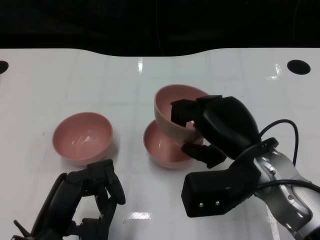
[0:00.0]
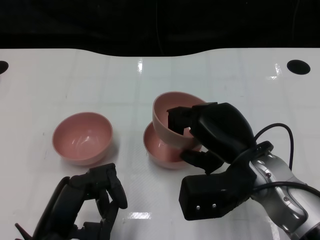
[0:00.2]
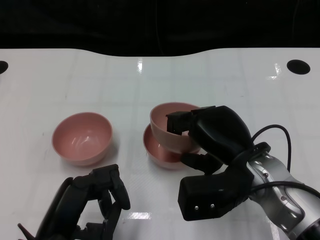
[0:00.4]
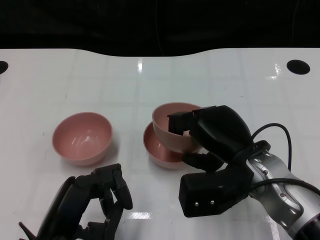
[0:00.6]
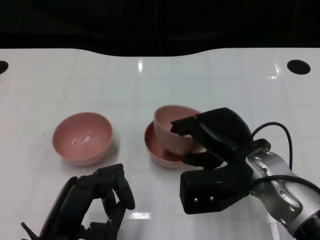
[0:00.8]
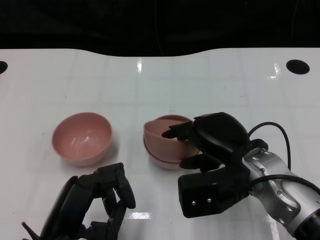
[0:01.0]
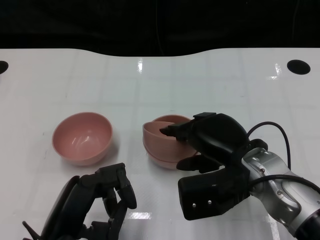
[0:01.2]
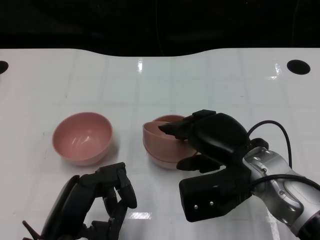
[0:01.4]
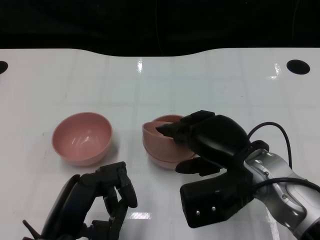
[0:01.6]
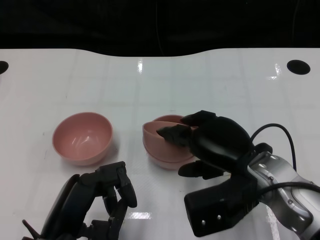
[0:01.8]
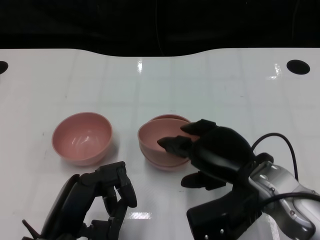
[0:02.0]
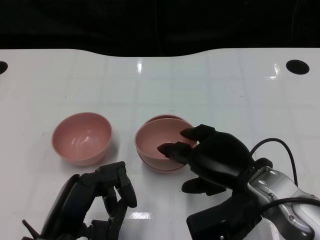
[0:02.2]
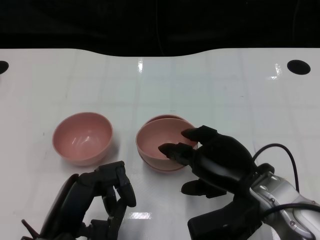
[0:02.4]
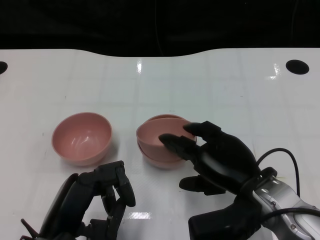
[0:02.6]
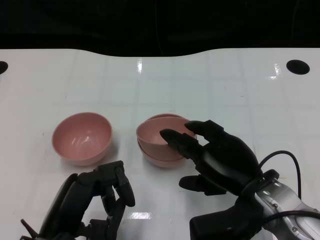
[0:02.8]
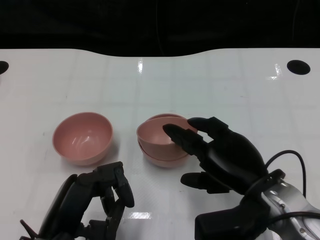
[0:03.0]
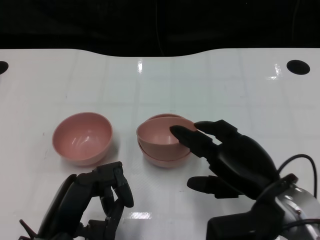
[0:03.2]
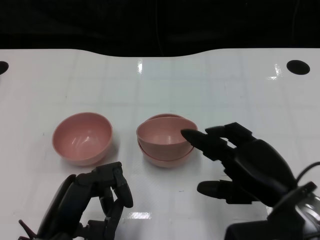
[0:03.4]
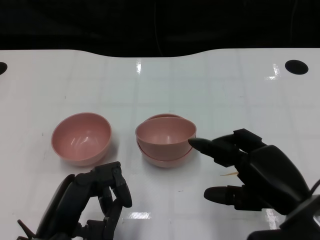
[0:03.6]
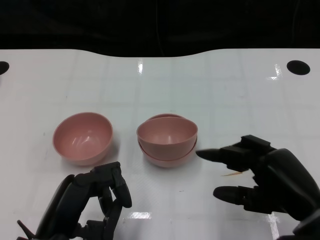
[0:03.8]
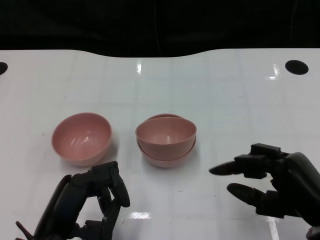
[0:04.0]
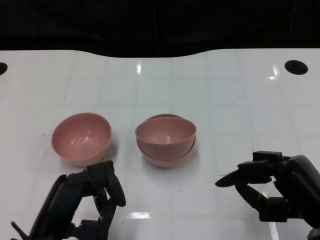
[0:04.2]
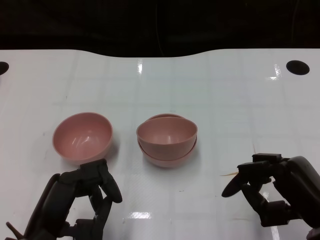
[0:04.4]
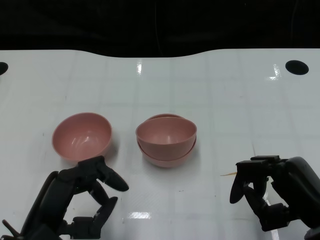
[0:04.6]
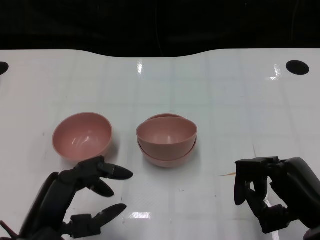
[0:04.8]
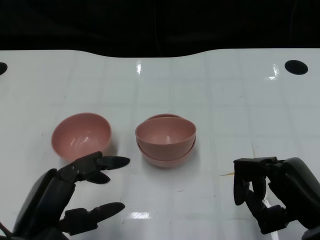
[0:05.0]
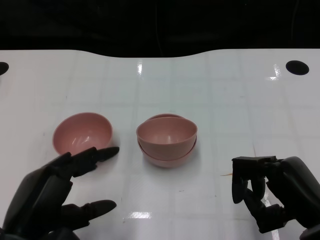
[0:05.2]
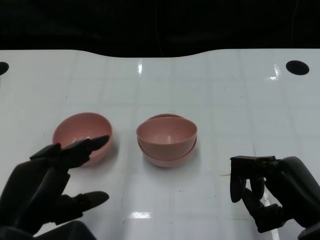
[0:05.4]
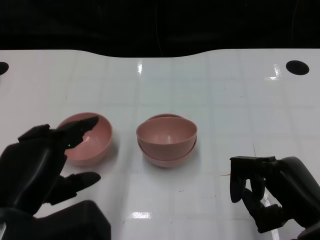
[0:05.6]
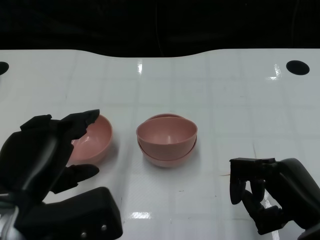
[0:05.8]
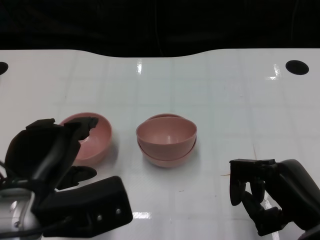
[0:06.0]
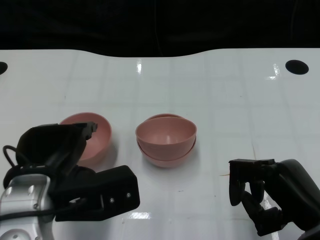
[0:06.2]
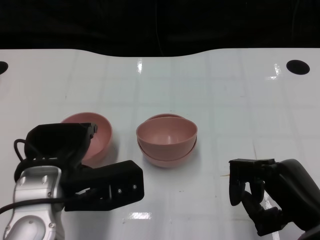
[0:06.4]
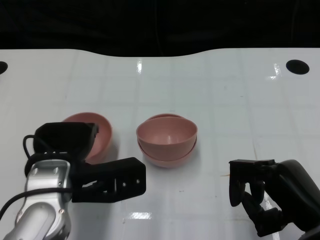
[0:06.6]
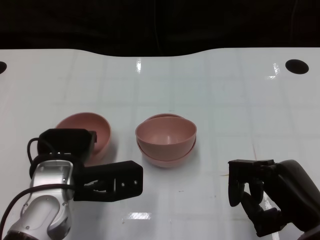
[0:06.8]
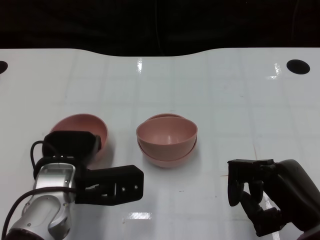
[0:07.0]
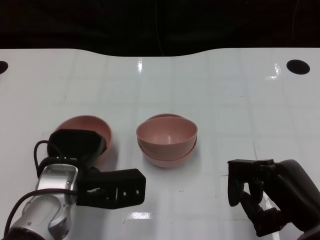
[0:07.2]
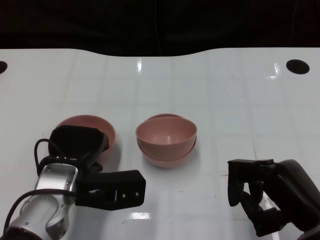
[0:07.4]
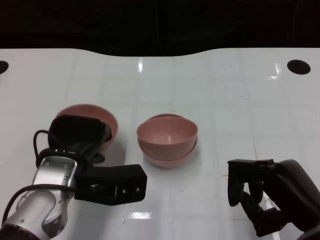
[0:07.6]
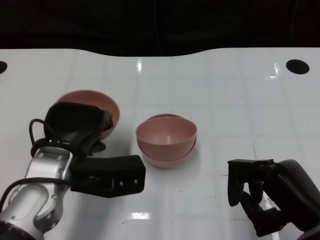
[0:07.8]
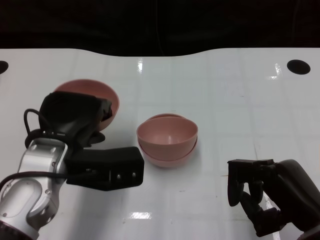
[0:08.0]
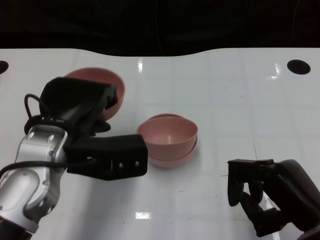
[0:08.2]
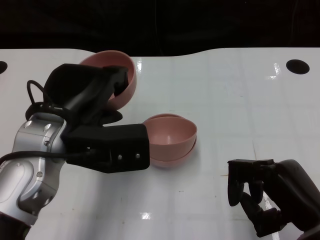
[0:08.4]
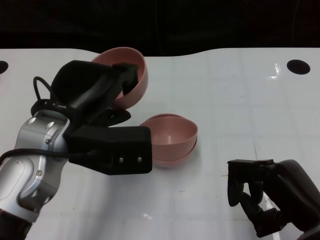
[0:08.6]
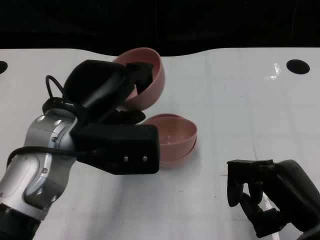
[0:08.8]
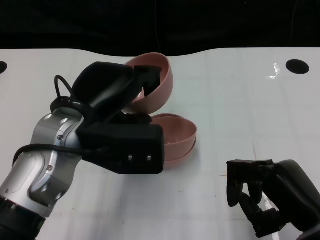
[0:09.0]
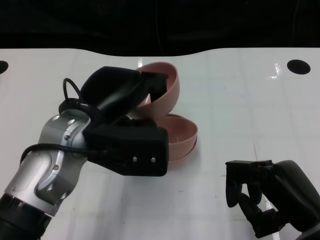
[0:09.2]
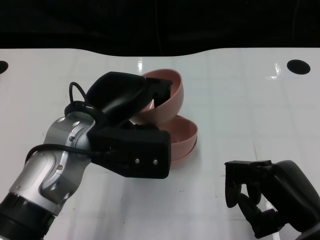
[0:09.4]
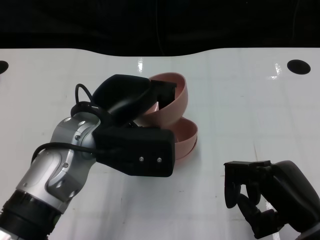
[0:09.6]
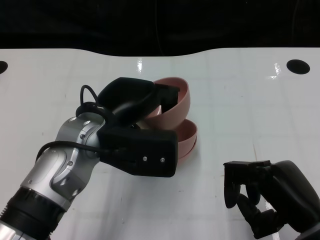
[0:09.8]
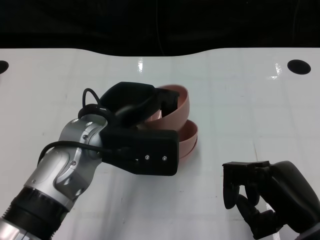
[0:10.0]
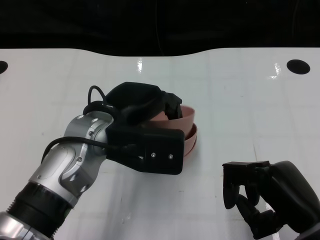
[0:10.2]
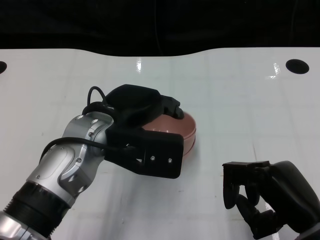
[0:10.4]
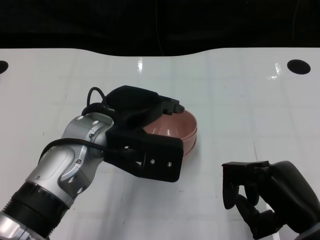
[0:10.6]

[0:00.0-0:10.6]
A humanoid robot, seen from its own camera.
Task of the whole recording: Pick up the bowl on one side of the table and place it on top of the middle bowl, then pick up the bowl on the other side of the table and place it on top of the middle bowls.
Step, 0:00.0 to 0:03.2: Place the bowl on the right onto the bowl in the middle with right gripper.
Step, 0:03.4 to 0:07.4: Grasp the bowl on the left with the left gripper.
0:00.0 to 0:01.6: The hands move only a little.
0:01.6 to 0:03.0: The hands move only a little.
0:03.0 to 0:04.6: The right hand heads to the right and backward, covering approximately 10 cm.
0:04.6 to 0:06.0: The left hand travels upward by approximately 5 cm.
0:06.0 to 0:07.6: The left hand travels forward and downward by approximately 10 cm.
0:07.6 to 0:09.0: The left hand heads upward, covering some 10 cm.

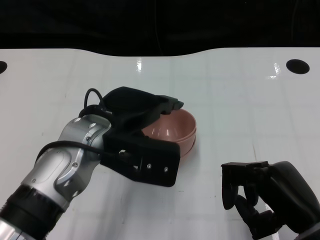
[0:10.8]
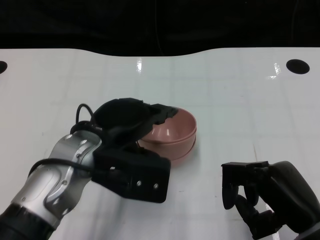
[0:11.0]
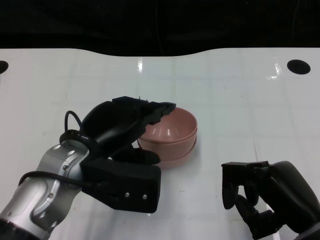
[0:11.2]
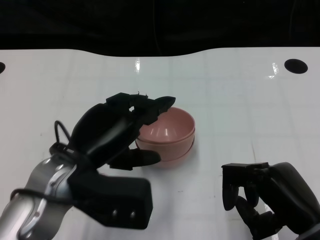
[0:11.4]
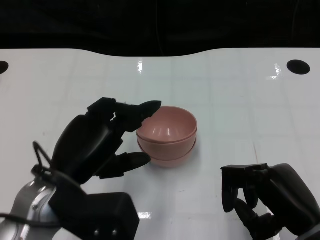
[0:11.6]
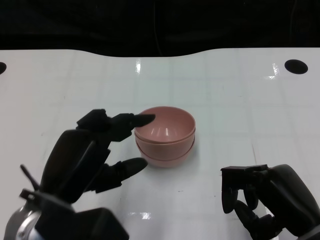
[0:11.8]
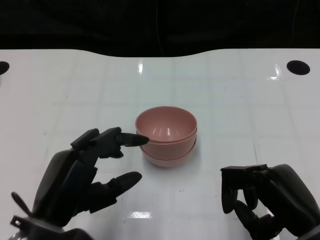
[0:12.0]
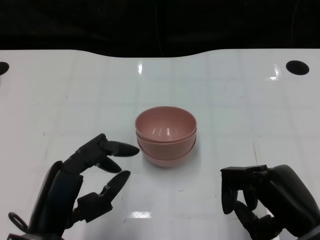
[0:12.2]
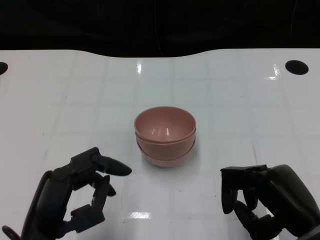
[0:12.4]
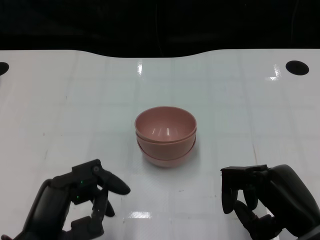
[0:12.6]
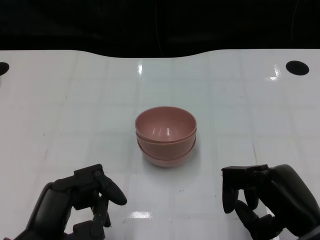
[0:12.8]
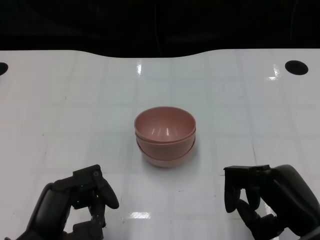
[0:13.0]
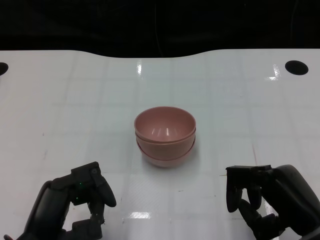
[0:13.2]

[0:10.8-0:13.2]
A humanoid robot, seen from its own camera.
Task of the whole recording: Pick up the bowl on one side of the table and place it on top of the middle bowl, then pick up the bowl on the other side of the table and place it on top of the middle bowls.
0:10.8 to 0:12.0: The left hand is displaced backward and to the left by roughly 15 cm.

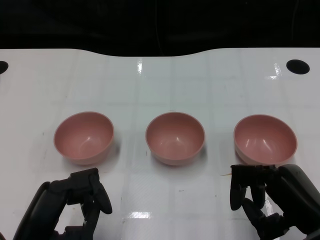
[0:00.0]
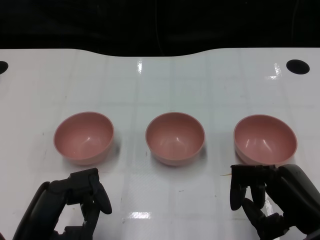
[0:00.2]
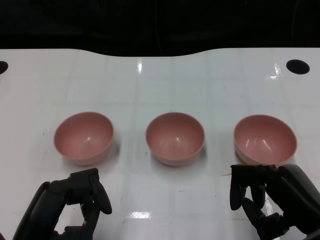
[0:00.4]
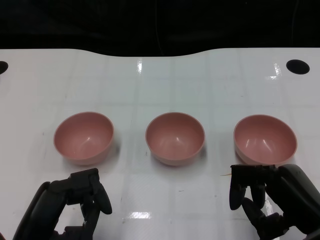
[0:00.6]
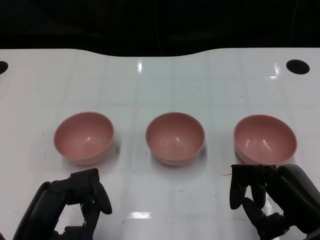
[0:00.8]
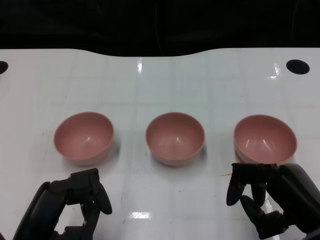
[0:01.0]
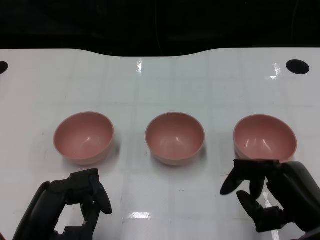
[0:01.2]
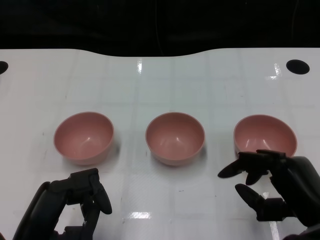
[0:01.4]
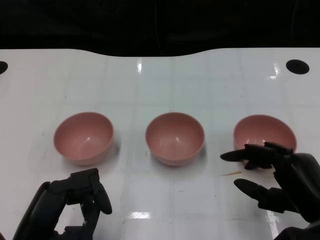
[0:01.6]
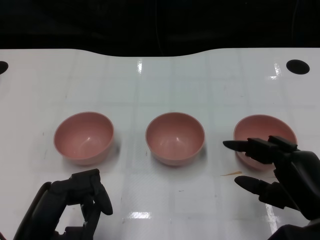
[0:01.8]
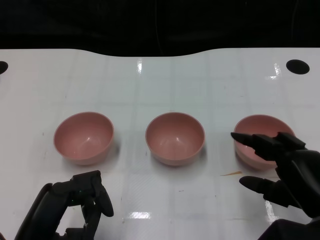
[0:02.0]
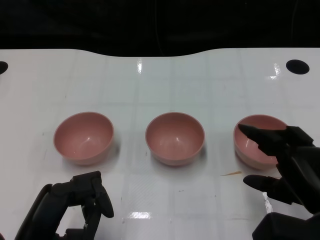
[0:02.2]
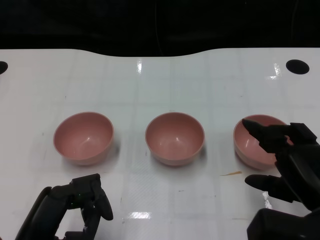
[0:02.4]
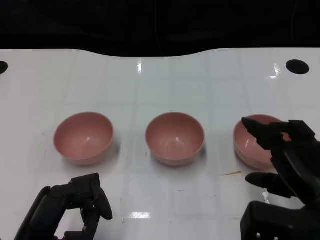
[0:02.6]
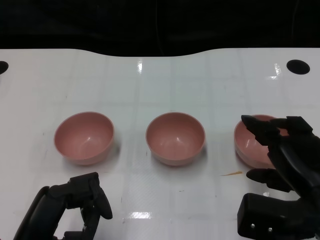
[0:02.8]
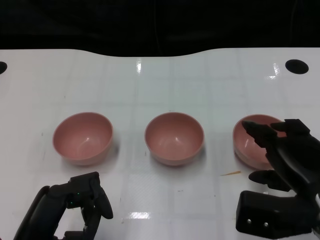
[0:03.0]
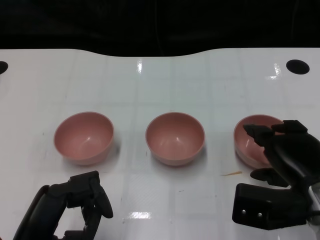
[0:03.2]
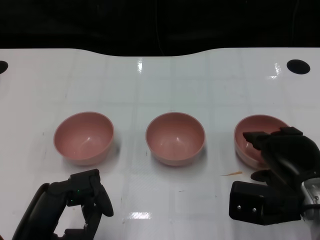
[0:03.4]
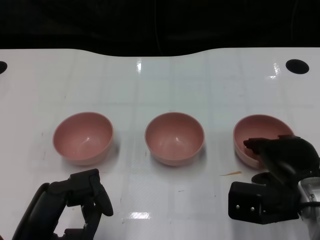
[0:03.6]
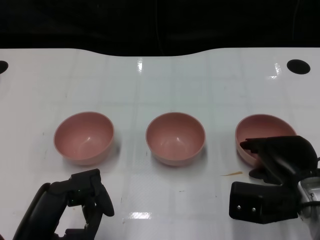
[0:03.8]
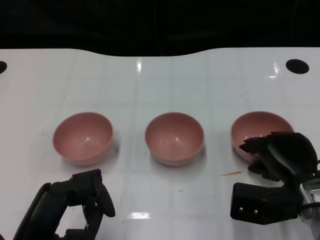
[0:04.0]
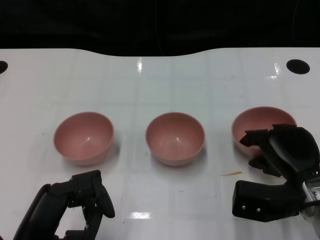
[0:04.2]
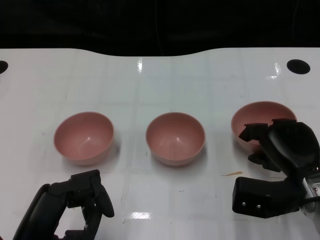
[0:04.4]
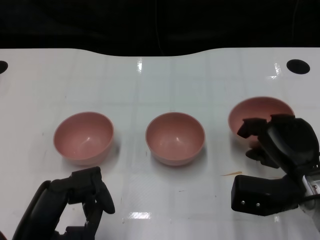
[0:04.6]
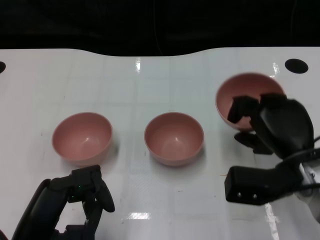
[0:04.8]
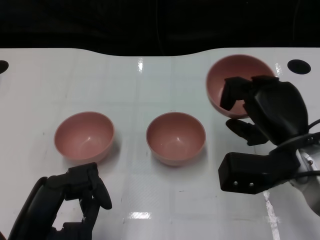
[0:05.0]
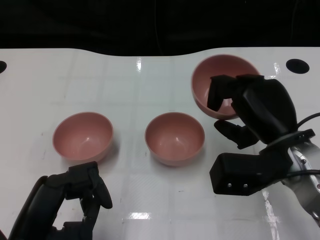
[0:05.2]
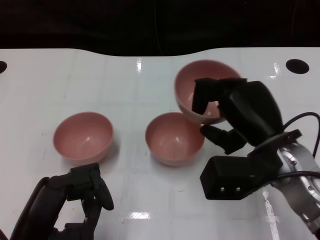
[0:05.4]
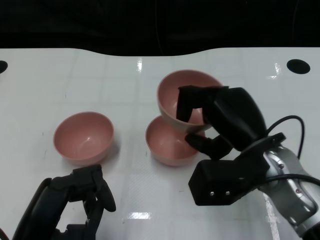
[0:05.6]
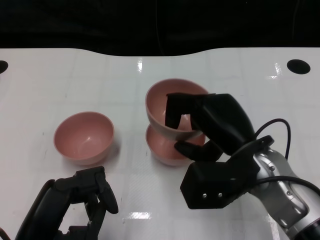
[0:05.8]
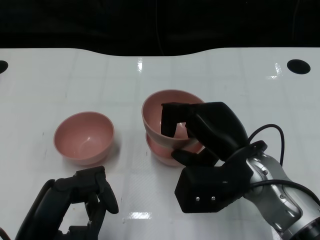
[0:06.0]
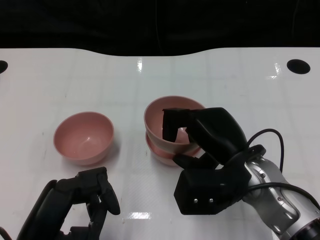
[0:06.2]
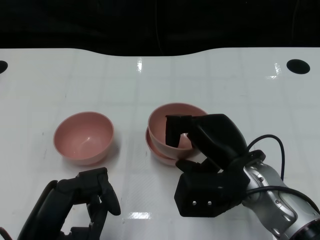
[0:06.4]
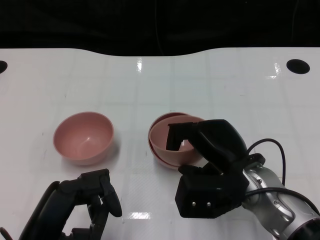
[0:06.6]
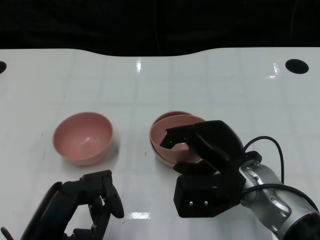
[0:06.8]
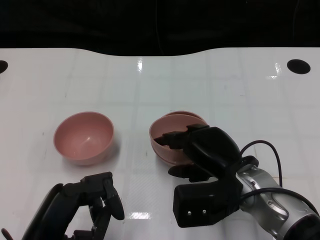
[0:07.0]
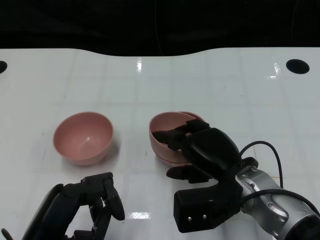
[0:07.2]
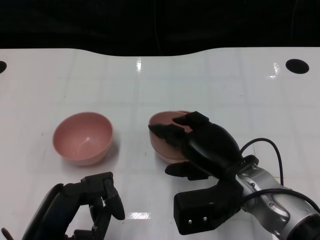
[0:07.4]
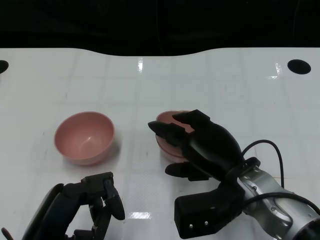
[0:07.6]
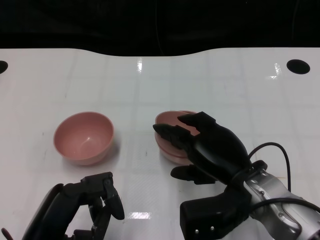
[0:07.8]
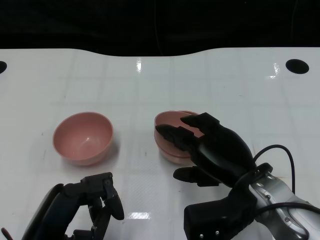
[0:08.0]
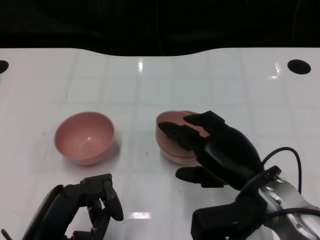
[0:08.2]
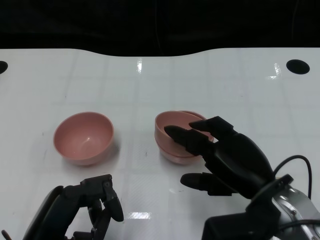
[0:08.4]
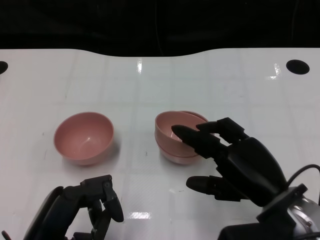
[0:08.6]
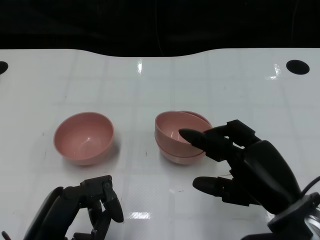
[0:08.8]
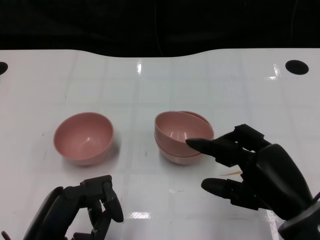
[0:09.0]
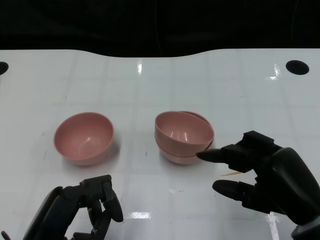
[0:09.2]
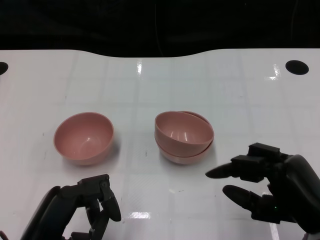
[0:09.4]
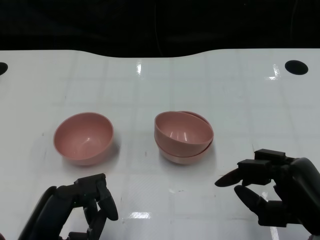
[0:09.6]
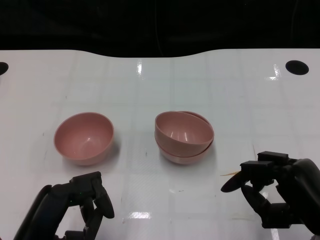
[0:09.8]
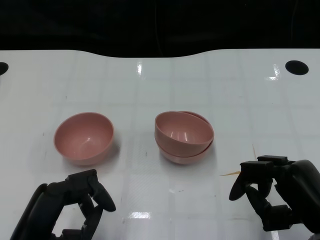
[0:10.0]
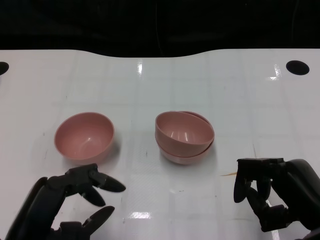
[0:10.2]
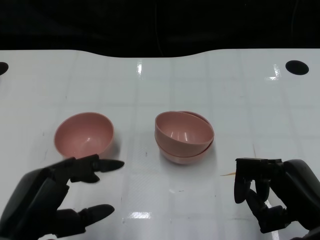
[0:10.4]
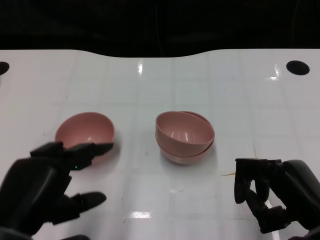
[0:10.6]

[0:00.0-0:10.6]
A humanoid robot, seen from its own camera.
Task of the whole recording: Pick up the bowl on one side of the table and place it on top of the middle bowl, then pick up the bowl on the other side of the table and place it on top of the middle bowls.
Step, 0:01.0 to 0:04.2: Grasp the bowl on the right with the right gripper.
Step, 0:04.4 to 0:08.6: Place the bowl on the right onto the bowl in the middle with right gripper.
0:03.0 to 0:04.6: The right hand moves about 5 cm.
0:04.6 to 0:06.0: The right hand goes approximately 10 cm to the left and upward.
0:06.0 to 0:07.6: The hands stay close to where they were, moving slightly.
0:07.6 to 0:09.0: The right hand moves to the right and backward, about 10 cm.
0:09.0 to 0:10.6: The left hand moves upward, some 5 cm.
